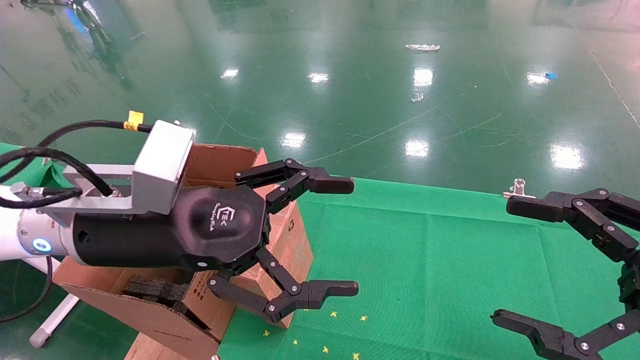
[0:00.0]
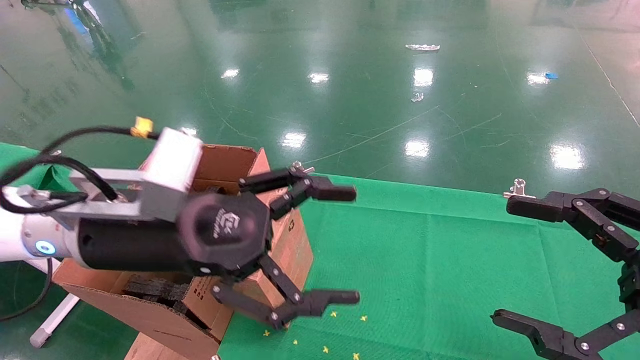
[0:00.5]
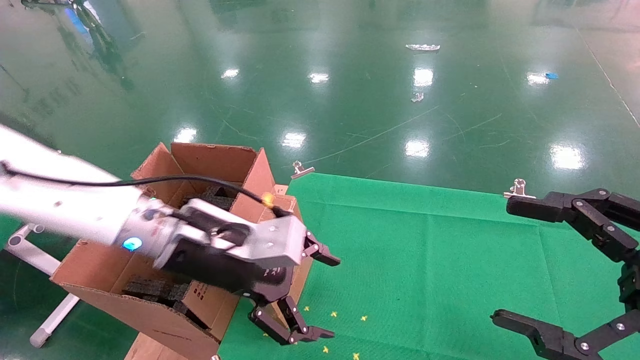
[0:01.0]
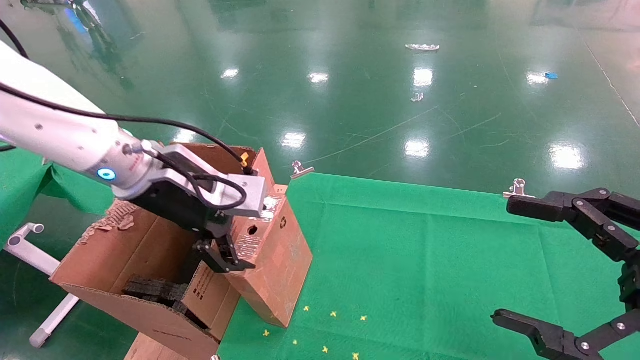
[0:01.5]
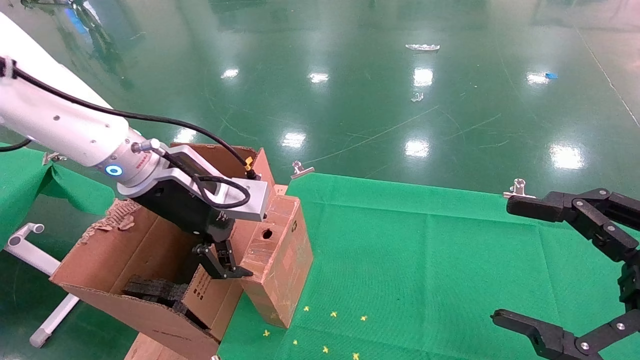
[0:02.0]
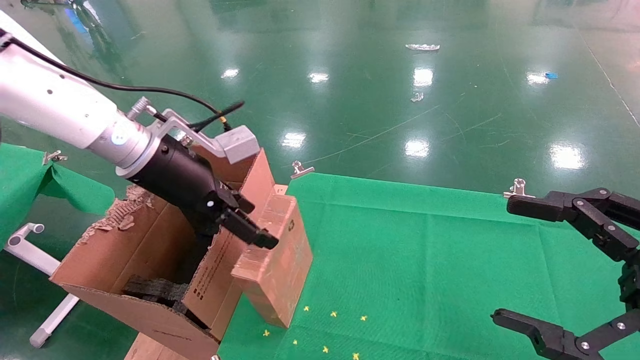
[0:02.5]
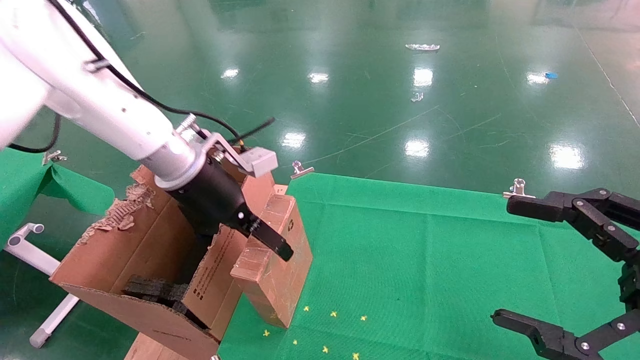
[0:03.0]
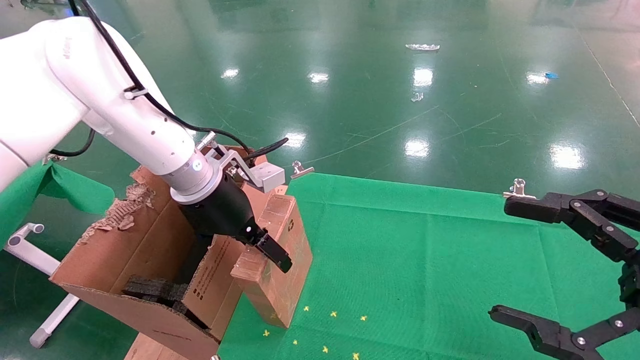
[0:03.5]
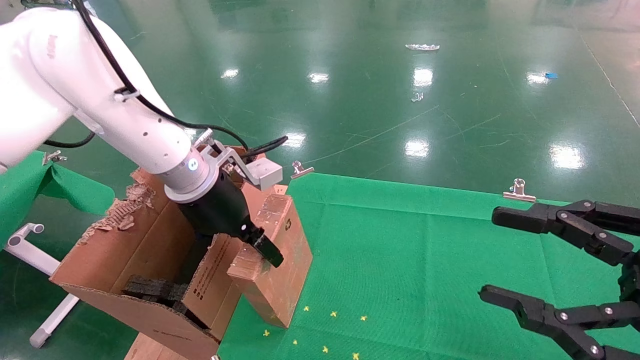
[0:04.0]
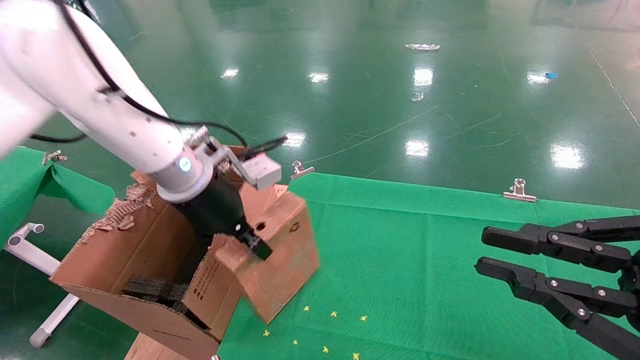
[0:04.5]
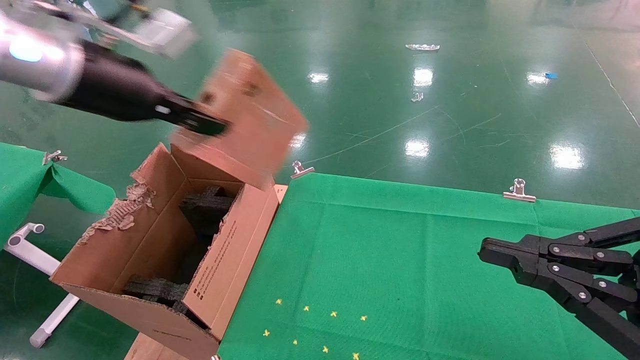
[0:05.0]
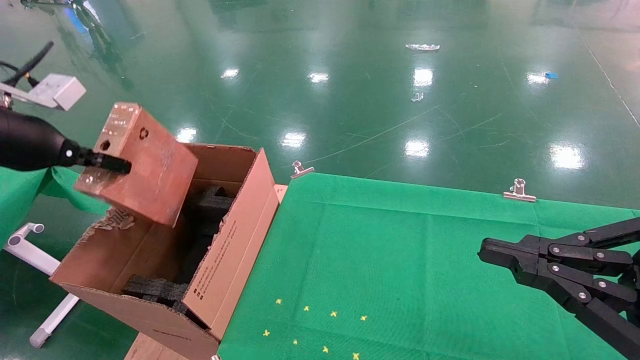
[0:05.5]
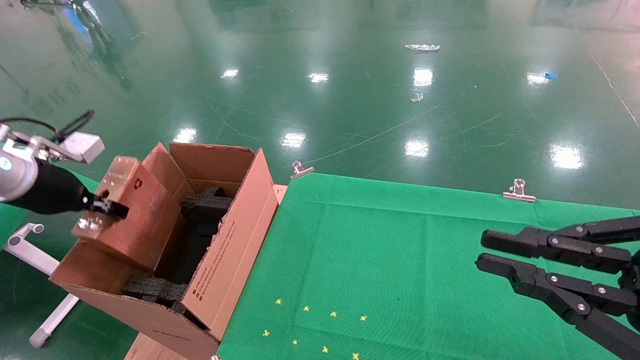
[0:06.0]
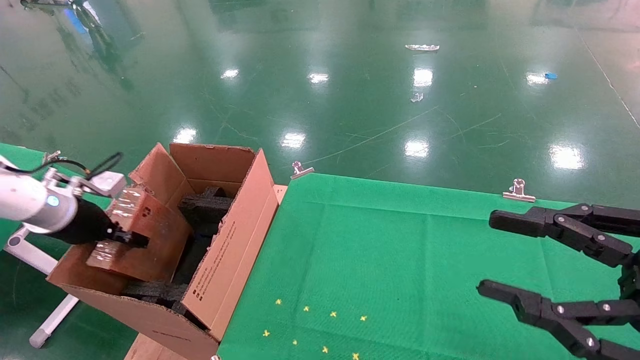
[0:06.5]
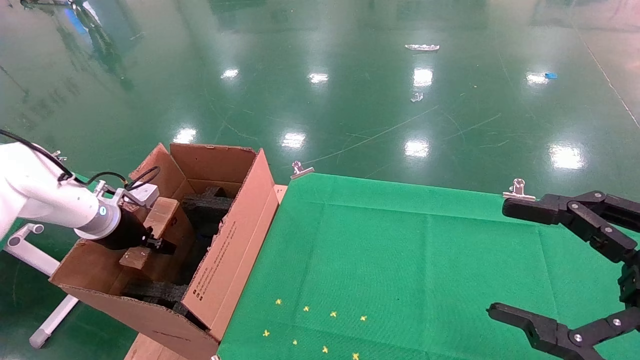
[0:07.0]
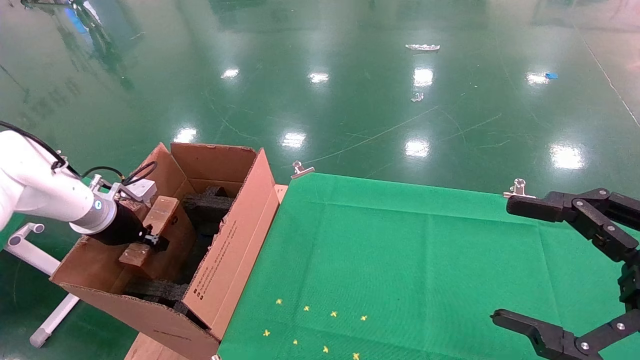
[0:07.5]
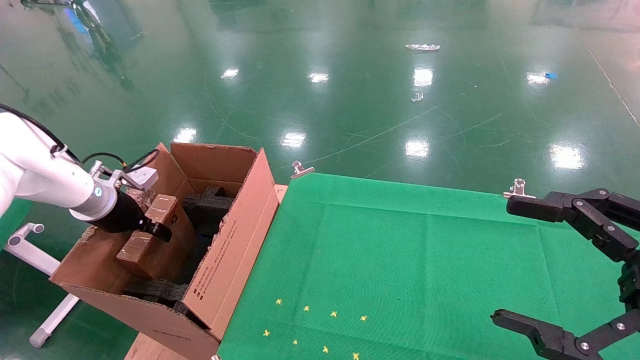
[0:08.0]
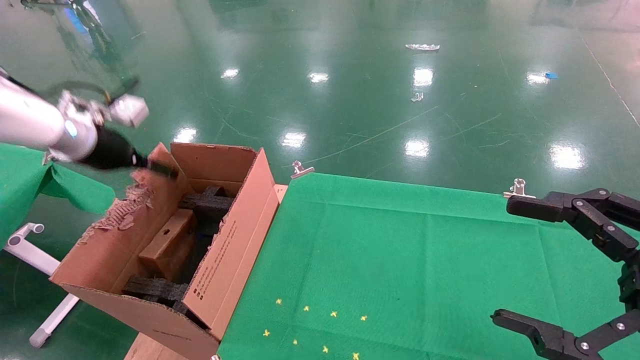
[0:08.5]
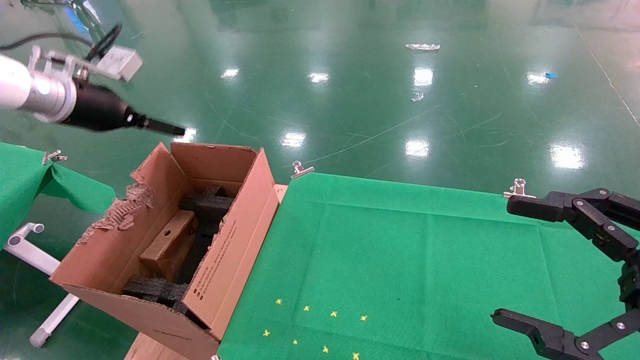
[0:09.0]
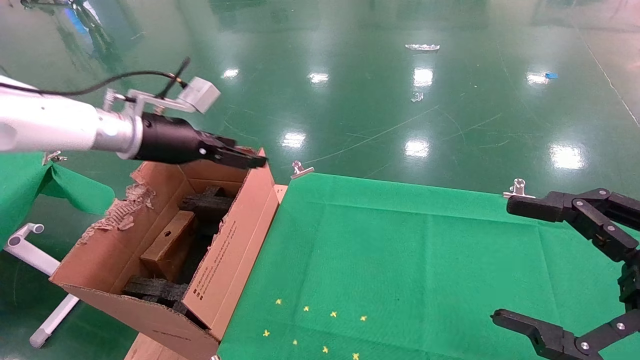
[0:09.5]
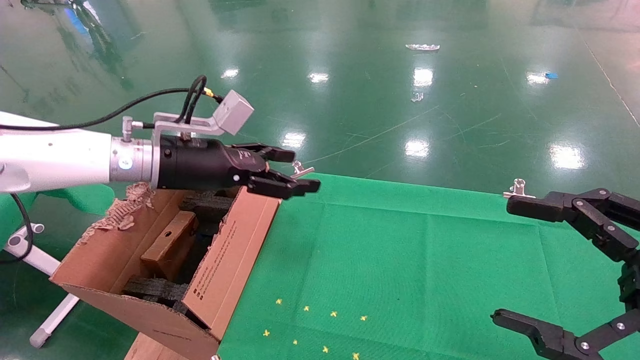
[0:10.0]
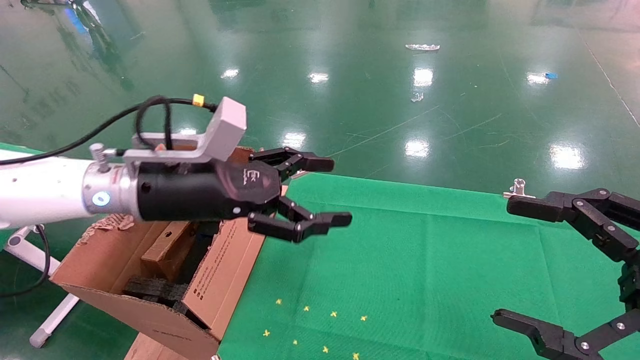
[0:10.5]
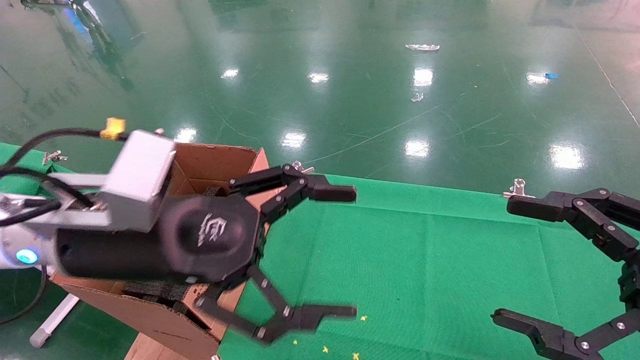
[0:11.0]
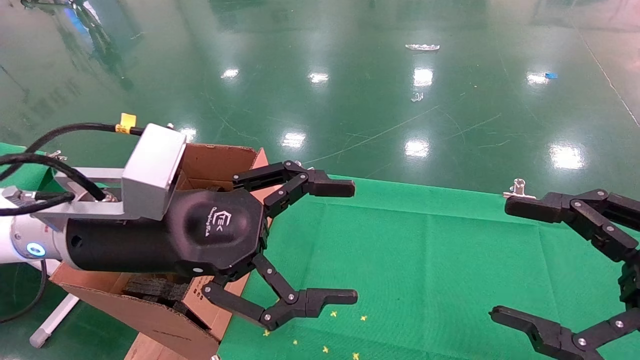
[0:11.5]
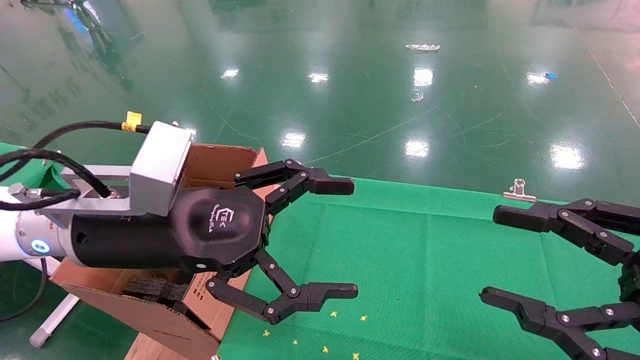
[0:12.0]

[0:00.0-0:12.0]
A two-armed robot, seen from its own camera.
Task of the whole recording: using a robotic arm to pick up a cardboard box and palace it the carton.
Step, 0:01.0 to 0:04.5: Pick up the mouse and the power cord paper box.
Step, 0:05.0 to 0:09.5: Place the mouse and the power cord paper box into the container.
0:00.0 to 0:02.0: The left gripper shifts roughly 10 cm forward.
0:02.0 to 0:04.0: The left gripper ends up some 5 cm from where it was.
0:04.0 to 0:06.0: The right gripper closes up. Meanwhile the left gripper shifts some 25 cm to the left, and closes.
0:06.0 to 0:08.0: The left gripper is displaced forward and downward by approximately 10 cm; the right gripper opens its fingers.
0:08.0 to 0:10.0: The left gripper shifts roughly 20 cm to the right and upward, and opens up.
0:10.0 to 0:12.0: The left gripper heads backward, covering approximately 15 cm.

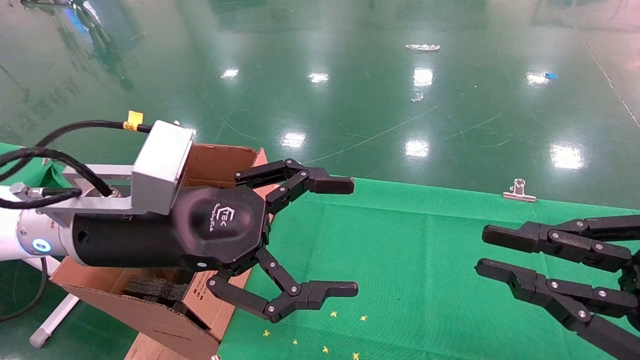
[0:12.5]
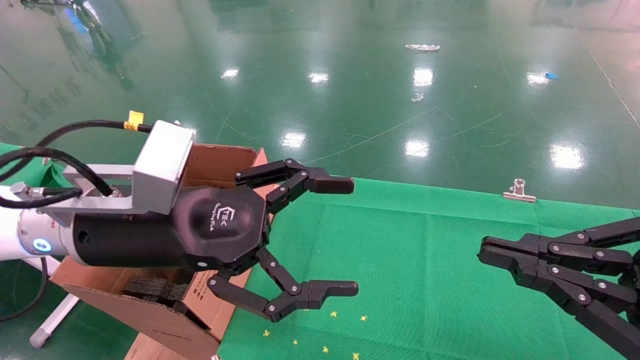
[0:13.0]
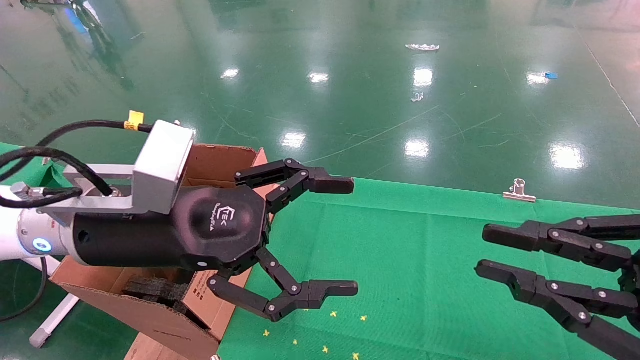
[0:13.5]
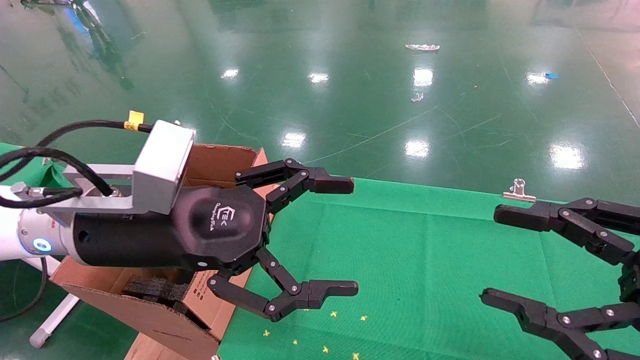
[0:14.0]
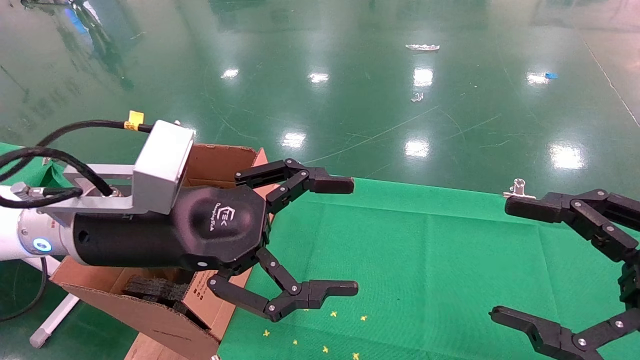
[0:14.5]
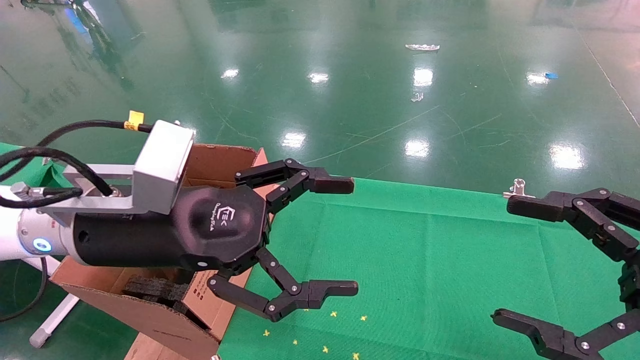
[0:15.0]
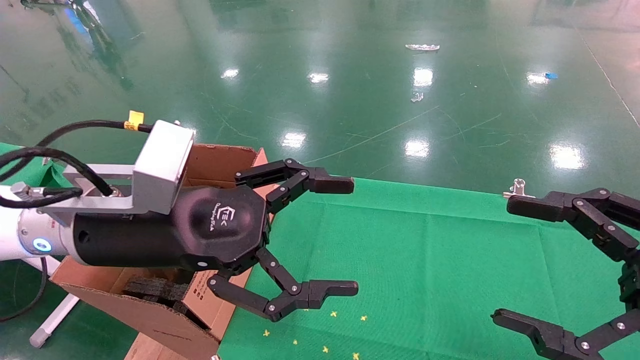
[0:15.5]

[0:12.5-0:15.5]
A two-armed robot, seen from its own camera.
Task of the whole recording: using a robotic arm to pick up a cardboard box and palace it the carton.
0:12.5 to 0:14.0: Neither gripper changes place.
0:14.0 to 0:15.5: The right gripper opens its fingers.
